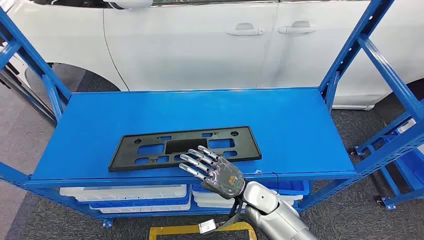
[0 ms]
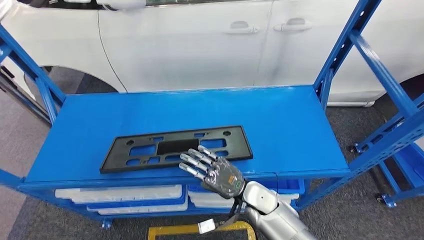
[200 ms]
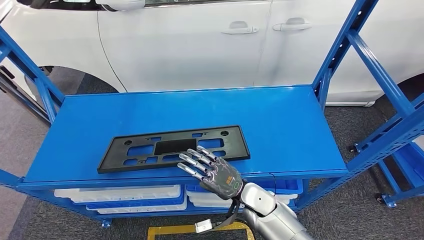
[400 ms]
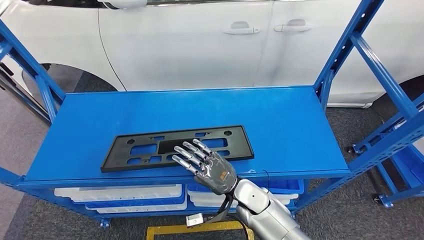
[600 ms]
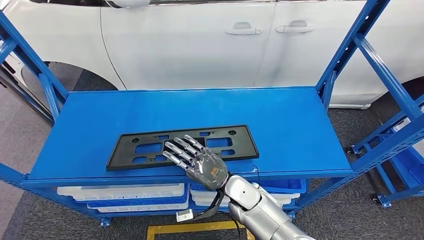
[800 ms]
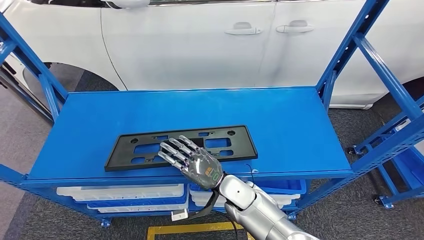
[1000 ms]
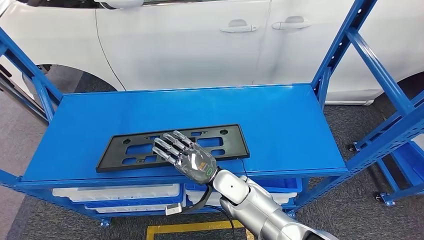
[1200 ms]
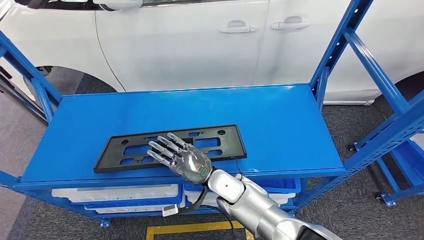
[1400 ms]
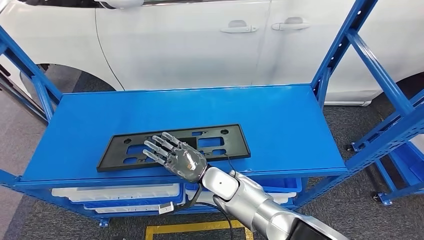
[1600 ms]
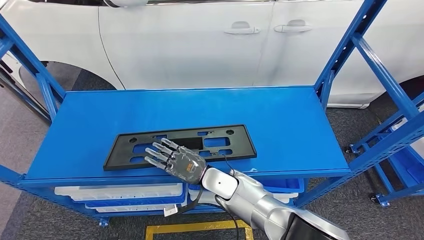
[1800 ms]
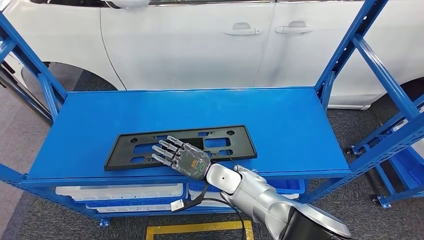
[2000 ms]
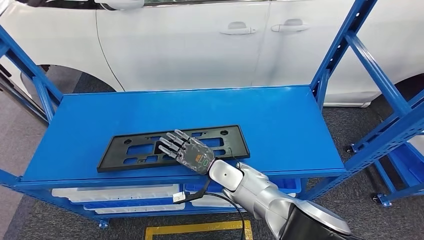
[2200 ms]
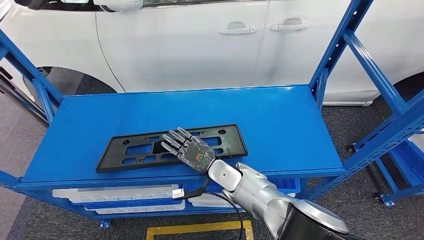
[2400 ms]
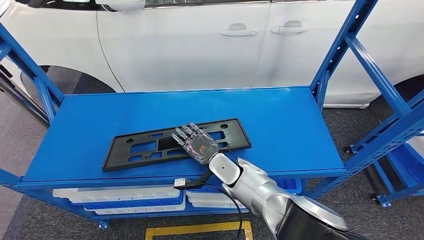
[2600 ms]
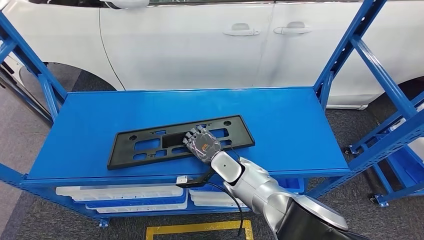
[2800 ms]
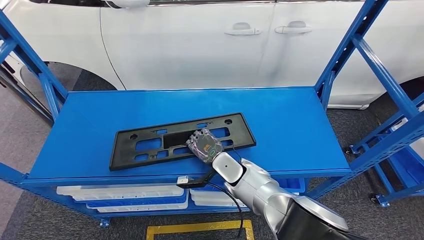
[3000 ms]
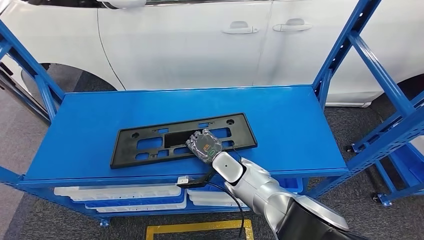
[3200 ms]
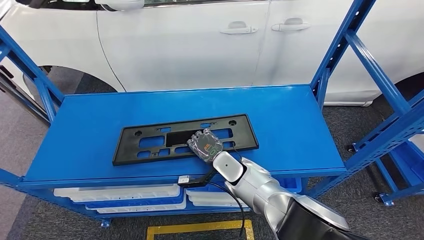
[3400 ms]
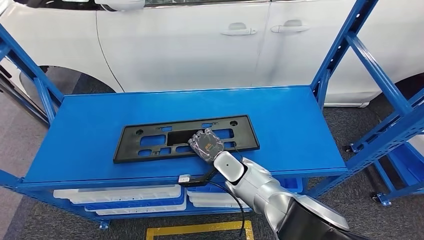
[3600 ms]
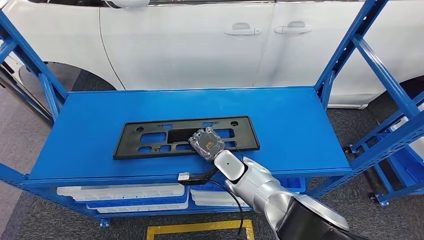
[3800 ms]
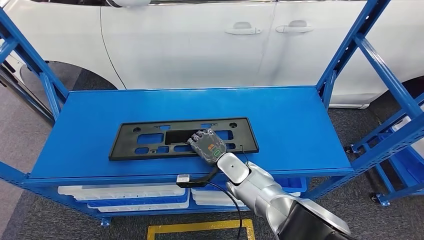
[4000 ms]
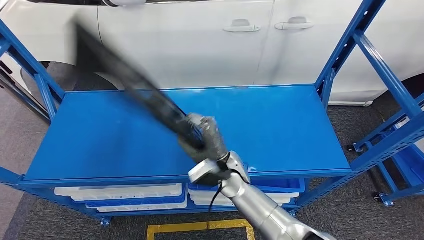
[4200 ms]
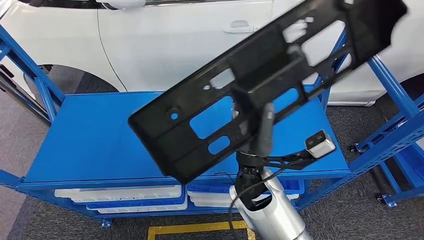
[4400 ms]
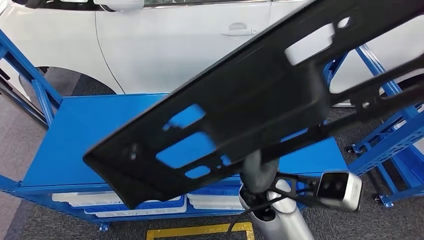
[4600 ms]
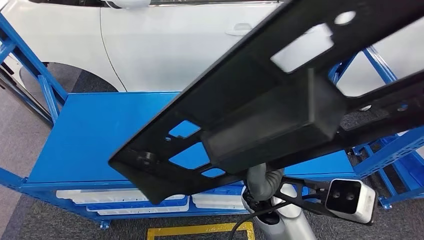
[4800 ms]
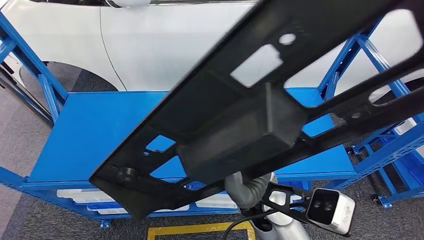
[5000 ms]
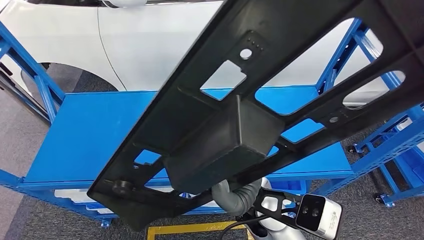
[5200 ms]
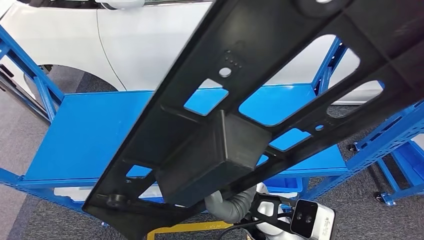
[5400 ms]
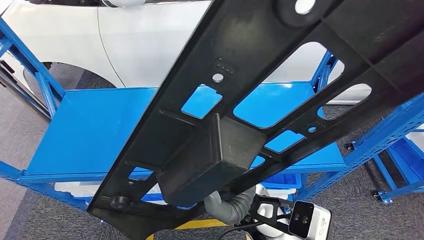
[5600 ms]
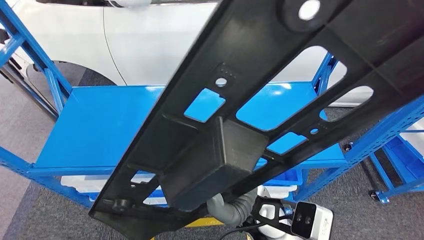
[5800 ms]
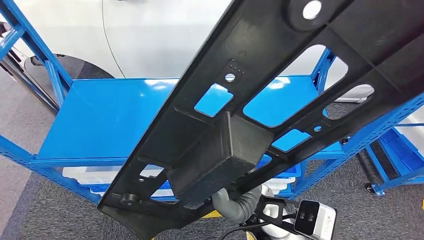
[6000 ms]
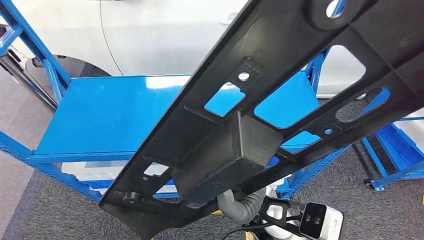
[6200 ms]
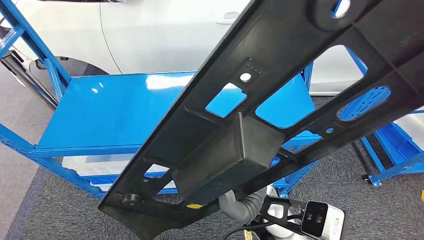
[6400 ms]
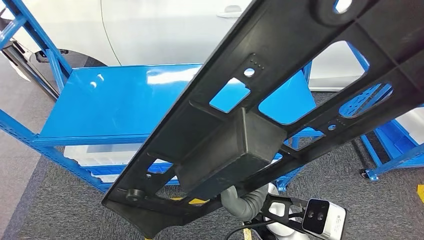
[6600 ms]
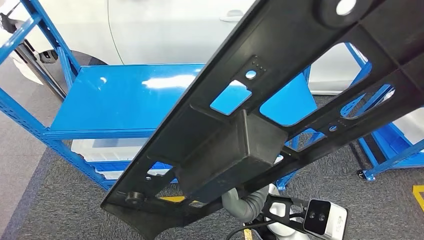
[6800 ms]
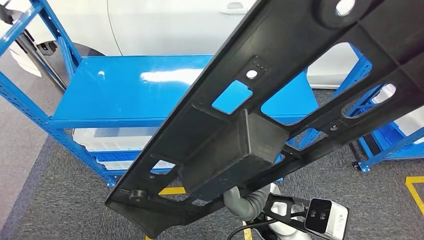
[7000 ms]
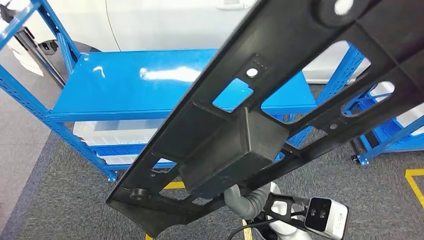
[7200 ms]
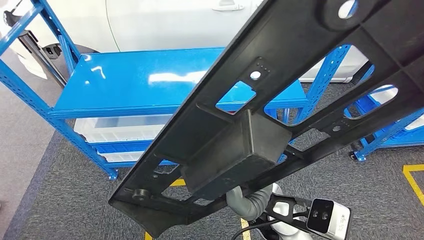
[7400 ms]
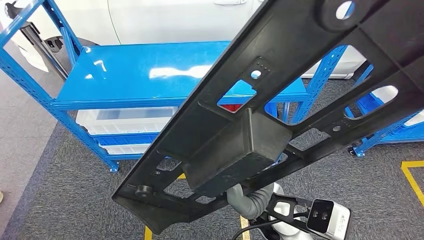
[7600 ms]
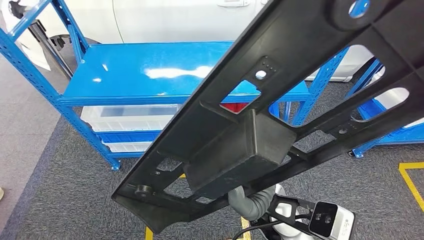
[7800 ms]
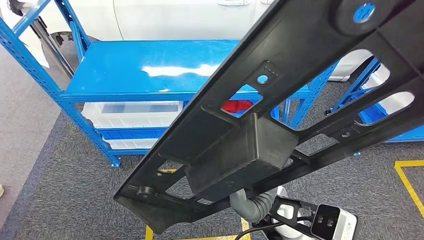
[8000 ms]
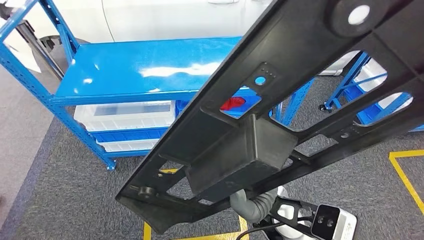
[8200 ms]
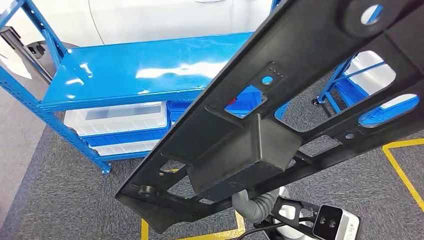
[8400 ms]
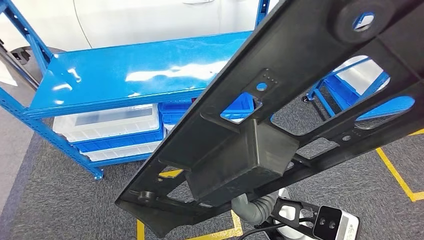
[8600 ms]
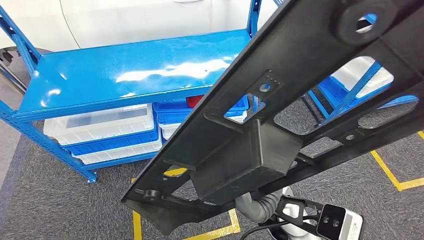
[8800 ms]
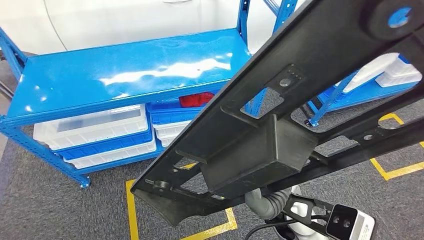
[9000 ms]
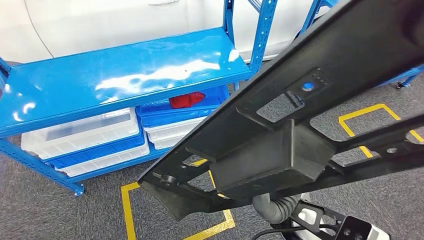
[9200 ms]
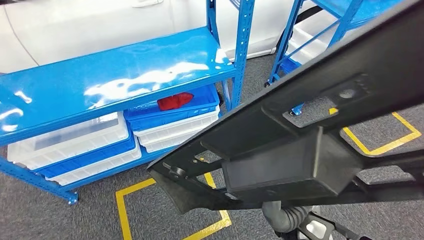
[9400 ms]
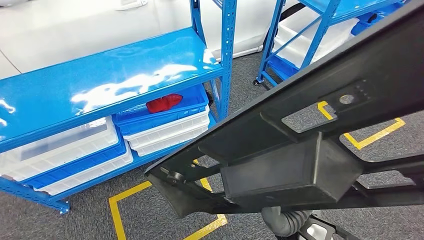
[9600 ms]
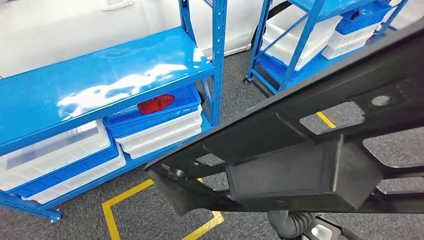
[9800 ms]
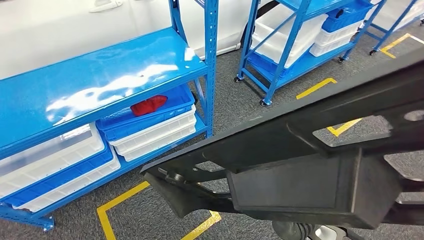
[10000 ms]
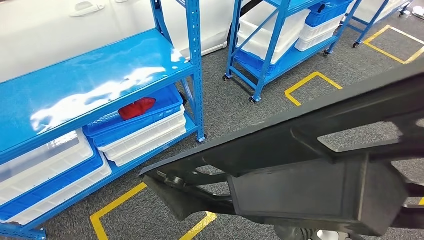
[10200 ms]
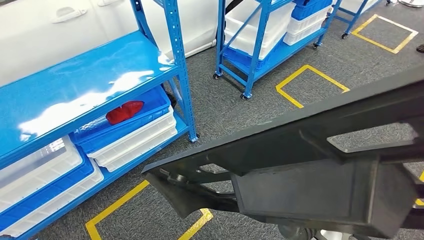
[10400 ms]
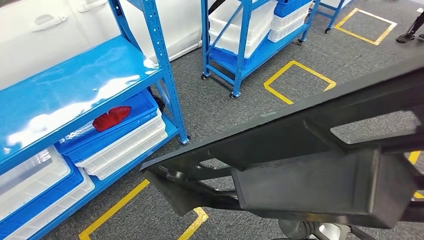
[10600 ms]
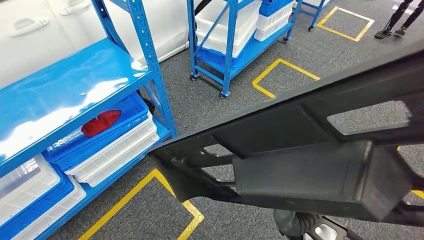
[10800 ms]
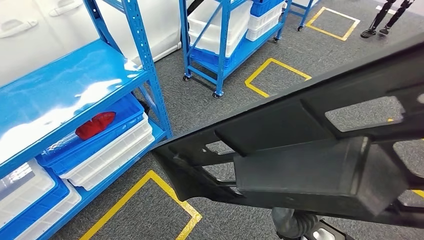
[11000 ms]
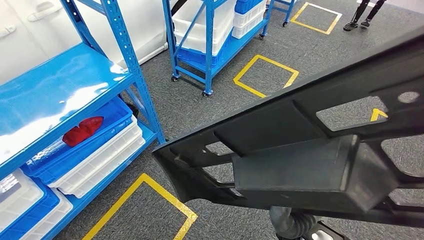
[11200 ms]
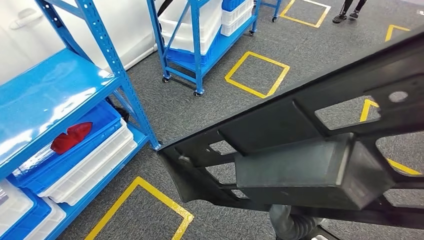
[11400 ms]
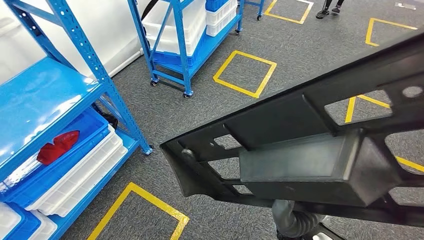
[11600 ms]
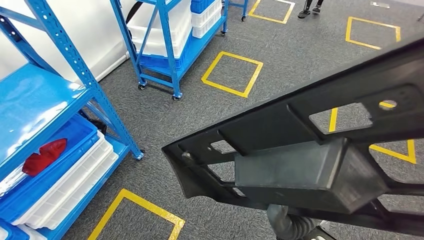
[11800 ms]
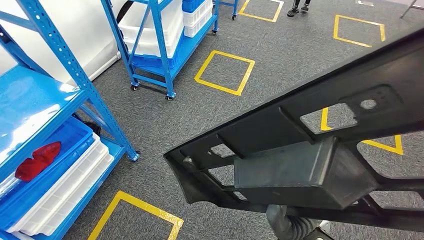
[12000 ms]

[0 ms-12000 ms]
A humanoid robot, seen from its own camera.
Step, 0 ms to 6800 ms: Pick up the large material from the shelf.

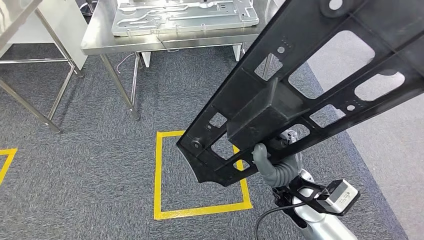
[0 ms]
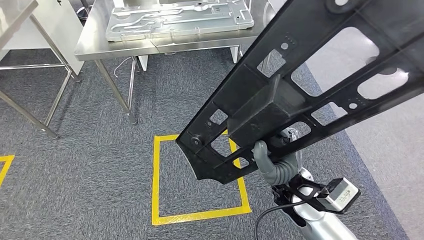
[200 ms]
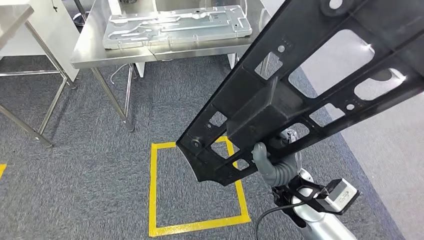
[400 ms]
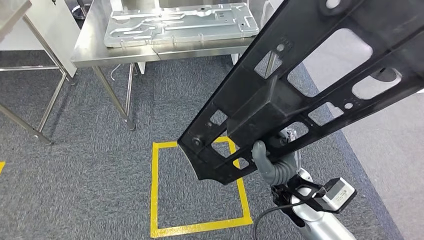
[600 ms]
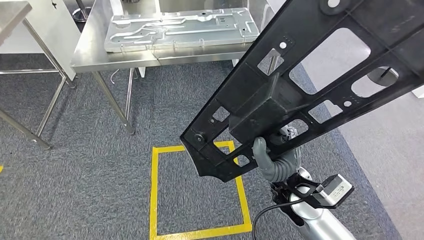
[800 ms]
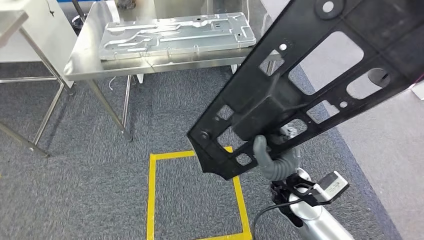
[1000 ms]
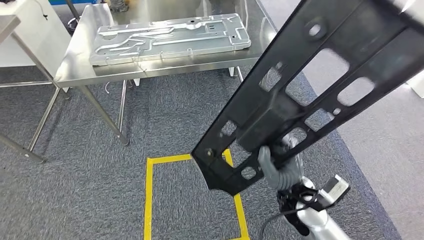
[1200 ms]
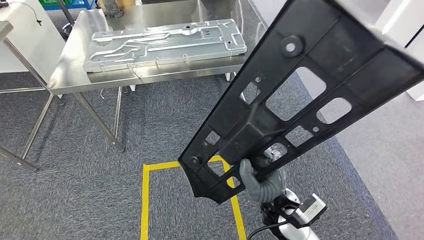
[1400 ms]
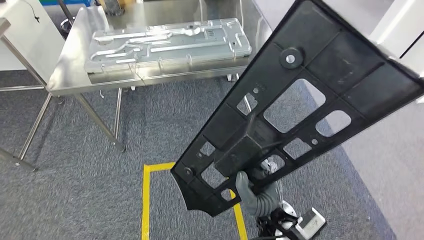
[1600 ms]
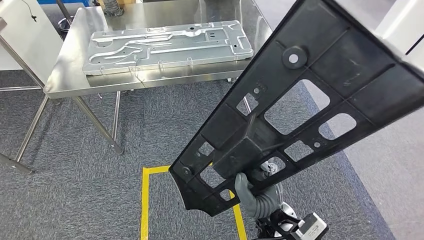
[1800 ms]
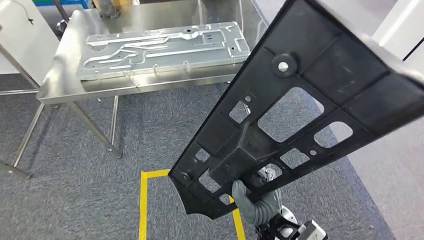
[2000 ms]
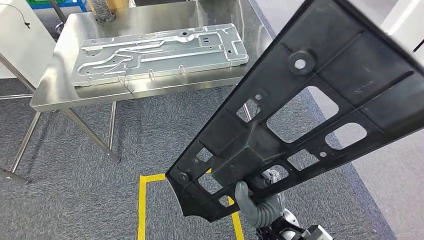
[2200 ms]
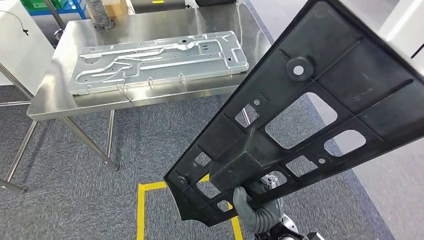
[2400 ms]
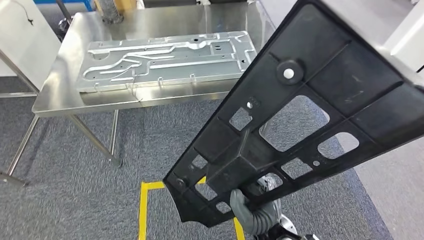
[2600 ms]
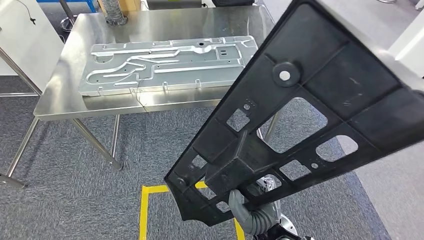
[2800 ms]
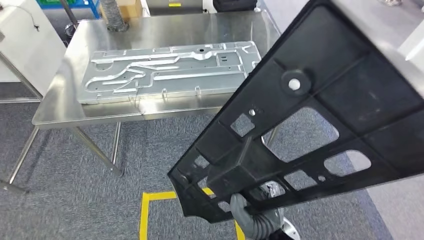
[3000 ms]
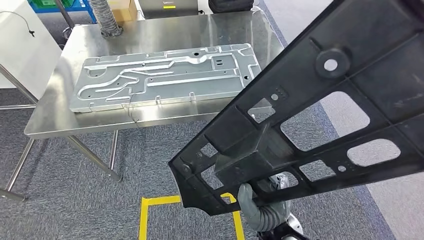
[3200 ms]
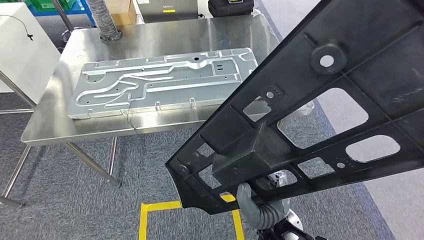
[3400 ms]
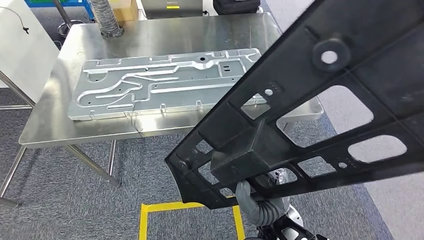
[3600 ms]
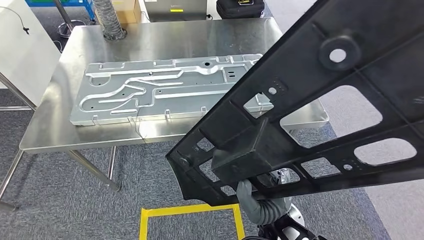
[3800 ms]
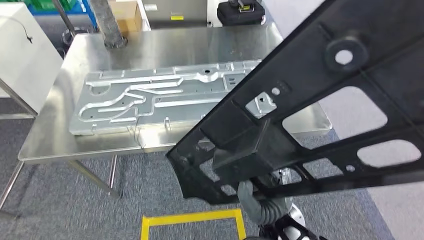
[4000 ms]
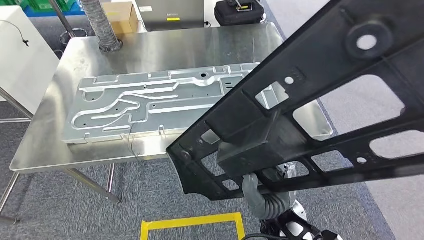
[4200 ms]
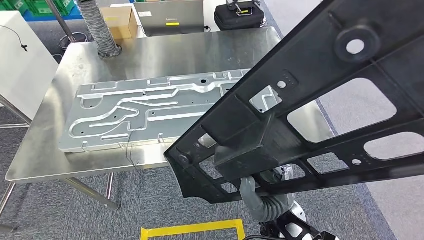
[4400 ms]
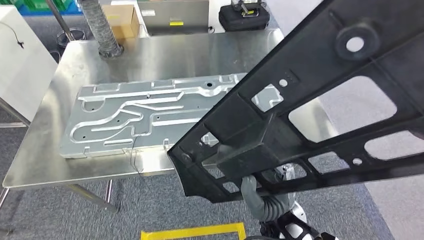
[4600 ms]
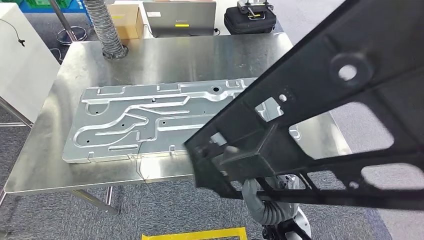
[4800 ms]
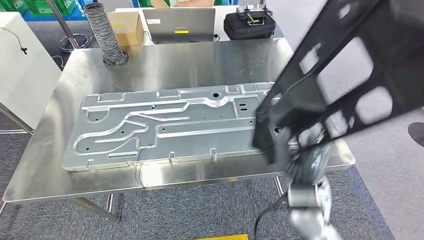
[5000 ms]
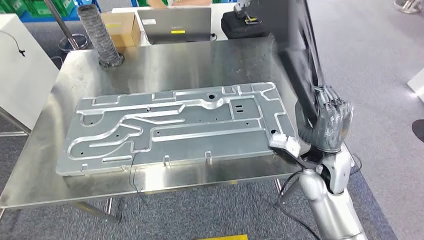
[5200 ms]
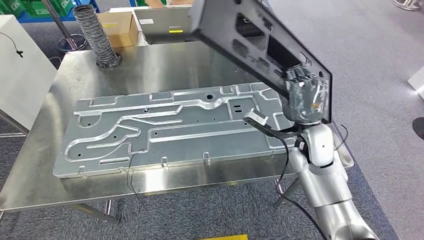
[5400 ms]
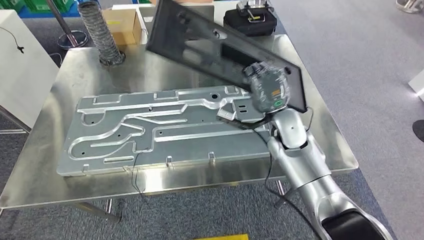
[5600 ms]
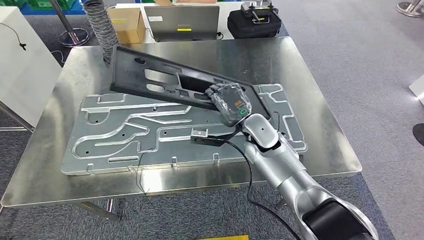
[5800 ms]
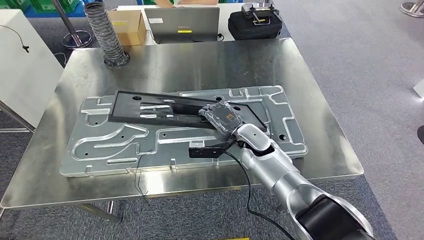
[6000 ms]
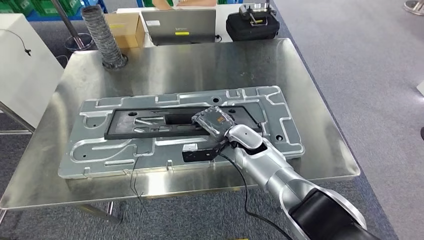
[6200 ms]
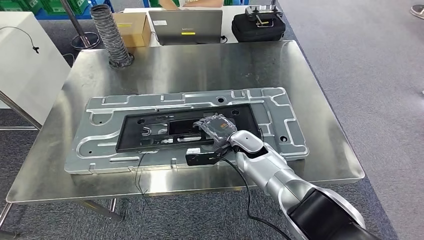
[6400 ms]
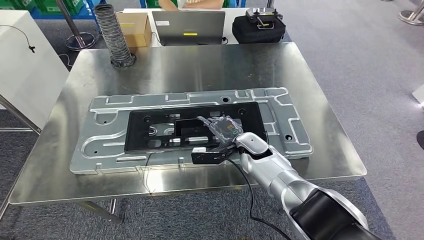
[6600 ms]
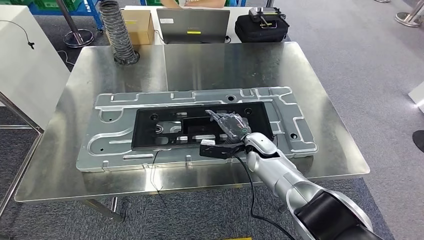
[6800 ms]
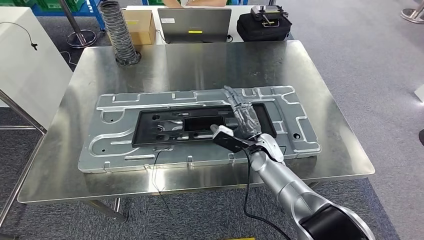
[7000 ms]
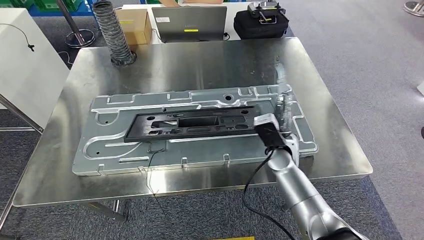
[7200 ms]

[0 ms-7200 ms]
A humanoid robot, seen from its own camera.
Step, 0 ms to 5400 ms: Move the large material to the workbench.
